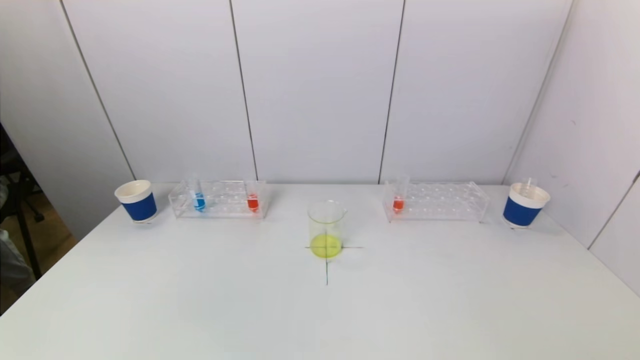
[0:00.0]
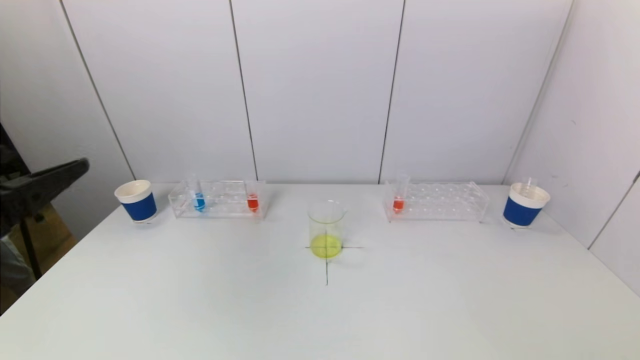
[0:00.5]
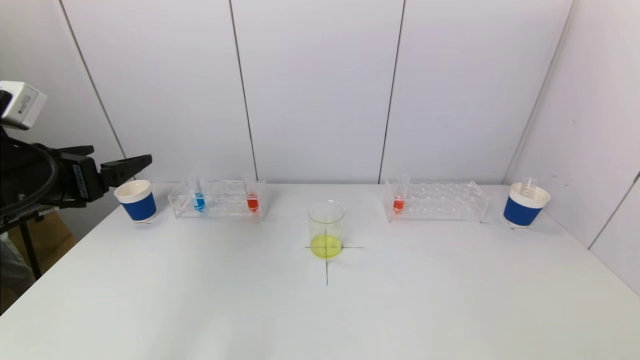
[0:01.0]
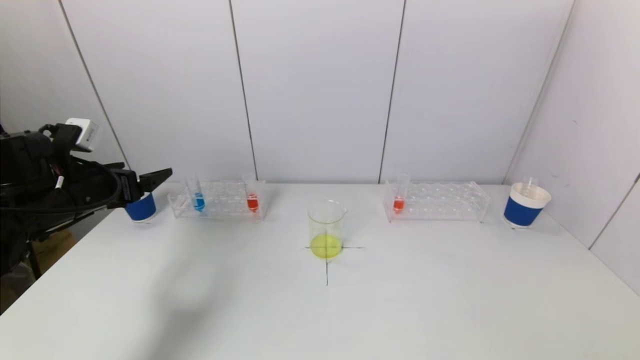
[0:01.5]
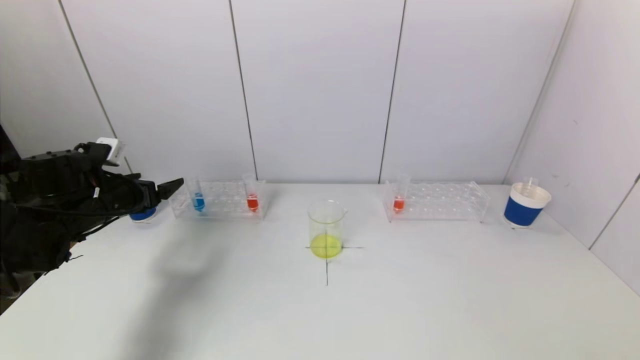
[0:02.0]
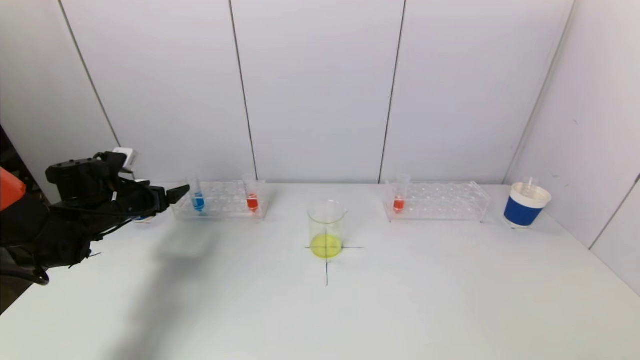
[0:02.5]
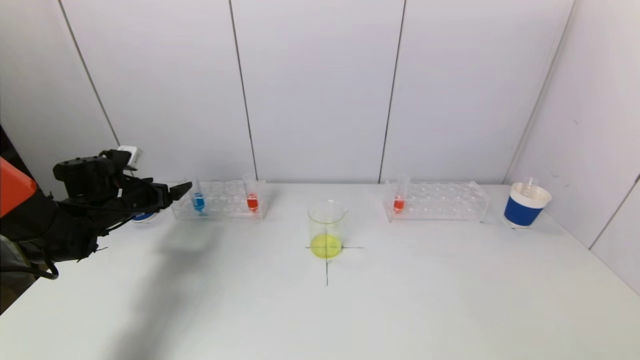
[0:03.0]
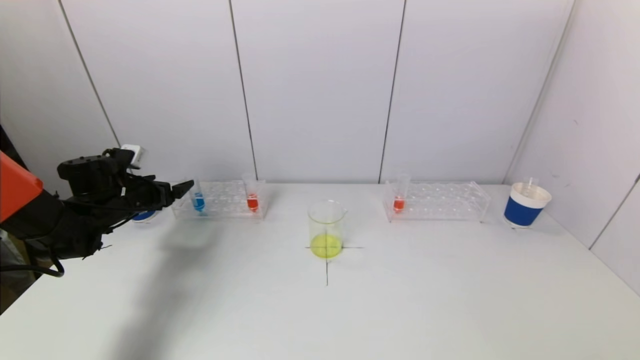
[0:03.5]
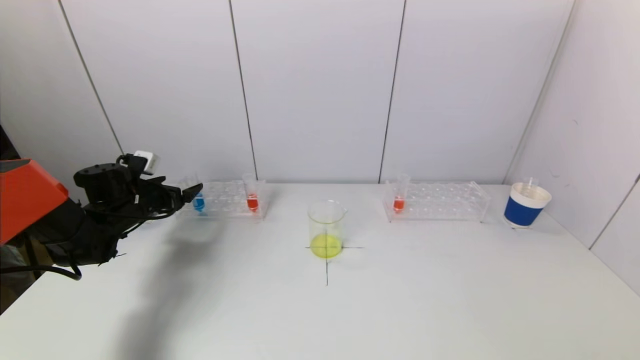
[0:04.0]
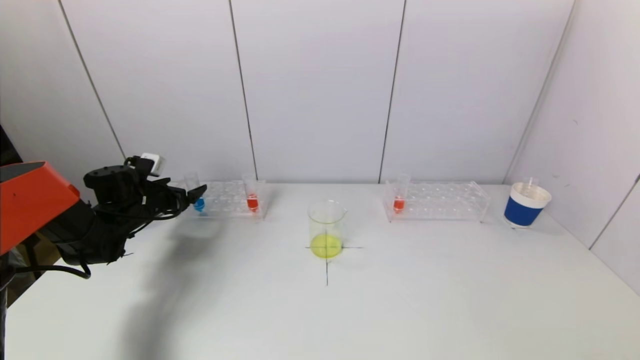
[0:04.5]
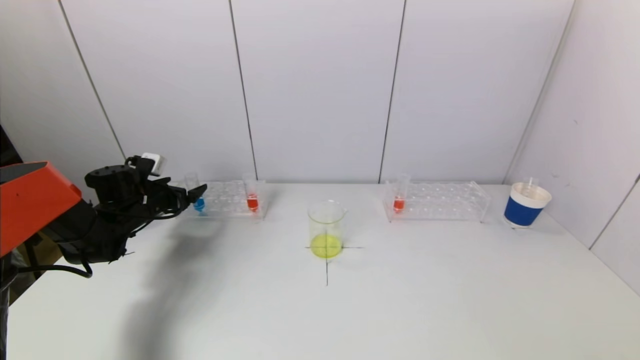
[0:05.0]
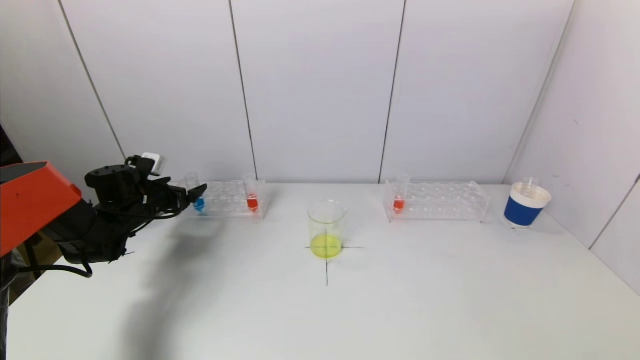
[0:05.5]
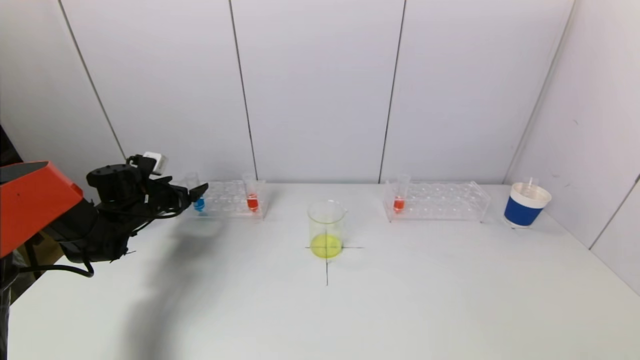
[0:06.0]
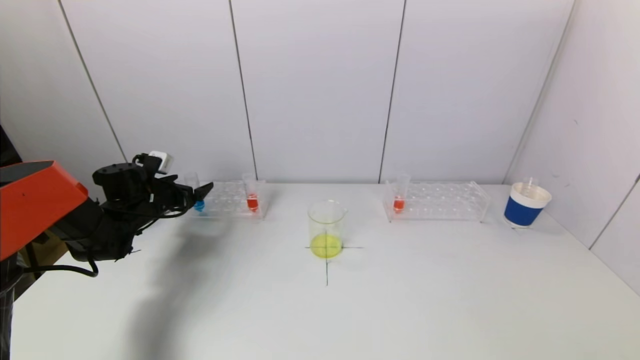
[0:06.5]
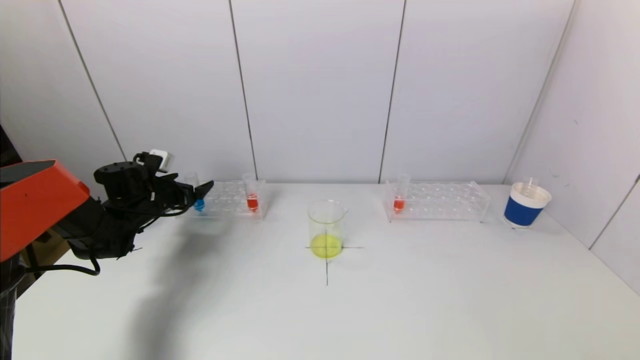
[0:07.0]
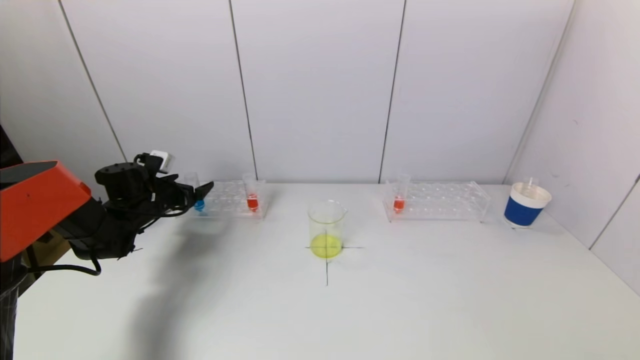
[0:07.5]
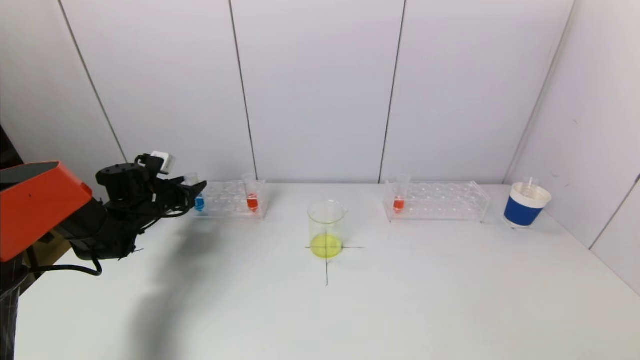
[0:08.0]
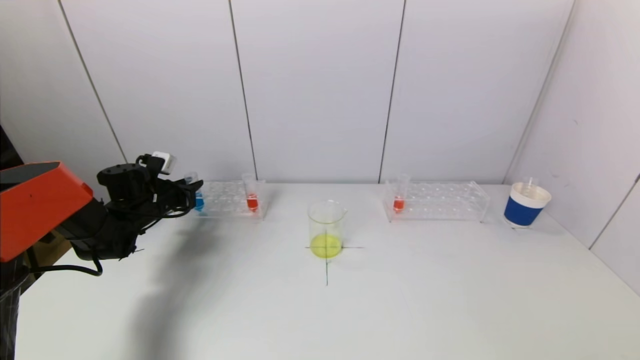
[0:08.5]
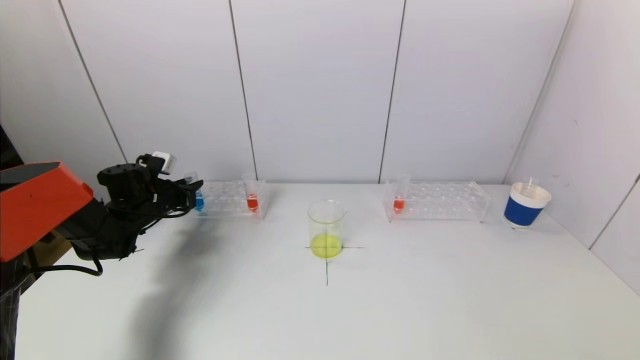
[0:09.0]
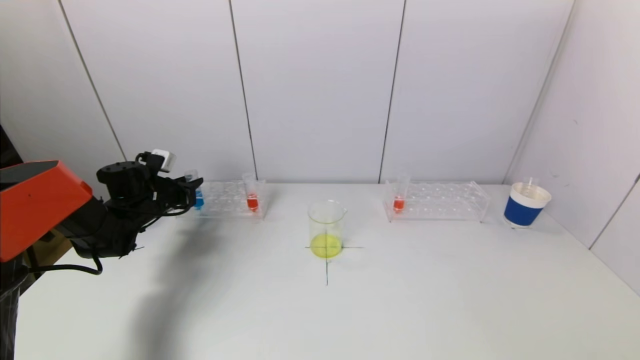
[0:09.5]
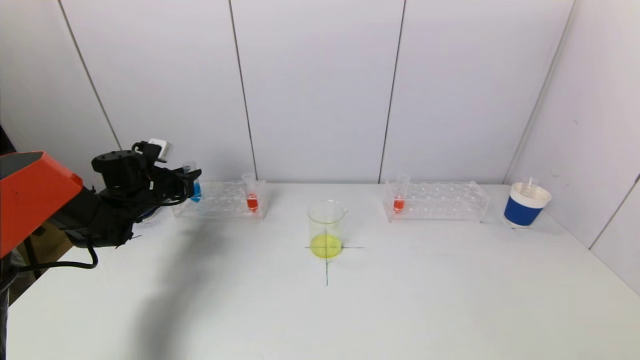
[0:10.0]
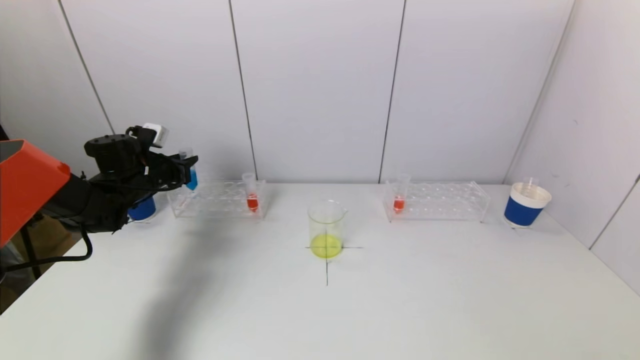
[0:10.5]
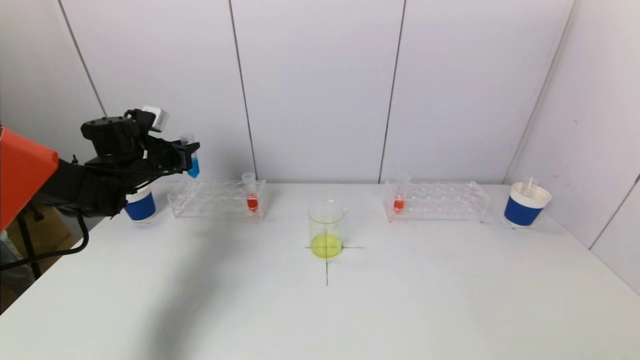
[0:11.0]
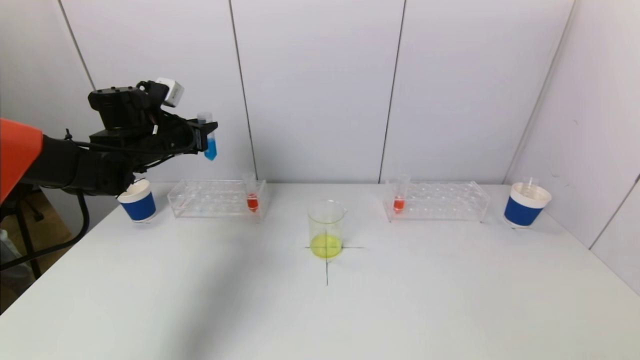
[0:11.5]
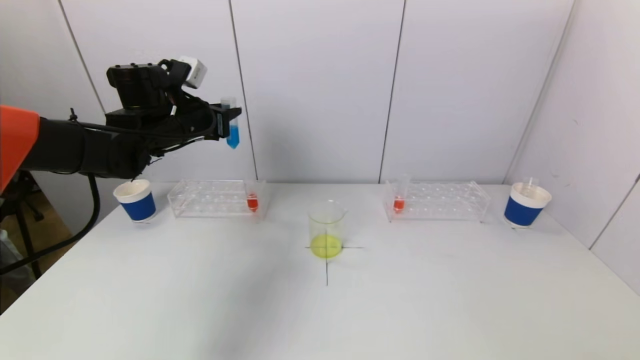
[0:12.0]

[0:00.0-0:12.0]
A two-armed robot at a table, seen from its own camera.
Task of the whole recording: pick up a test tube with pigment on left test tube rack and a test tube with pigment on right test tube rack by grippers and pour them into the beaker.
Step, 0:00.0 to 0:08.0: Grasp the blue reagent with the left gripper.
0:00.0 to 0:02.0: The left gripper is displaced forward by roughly 35 cm.
0:02.0 to 0:04.0: The left gripper goes some 10 cm forward and downward.
0:04.0 to 0:06.0: There are only small adjustments of the grippers.
0:06.0 to 0:08.0: The left gripper closes its fingers.
0:08.0 to 0:10.0: The left gripper closes.
0:10.0 to 0:12.0: The left gripper moves upward and to the right, some 20 cm.

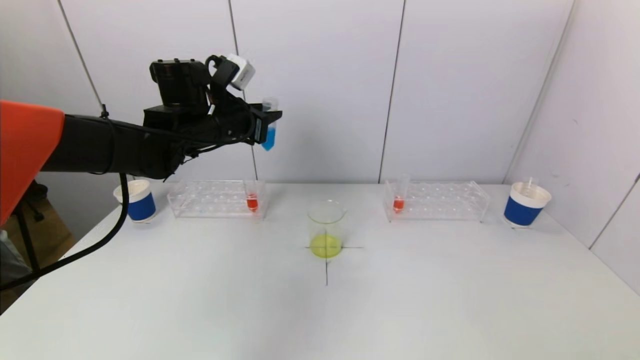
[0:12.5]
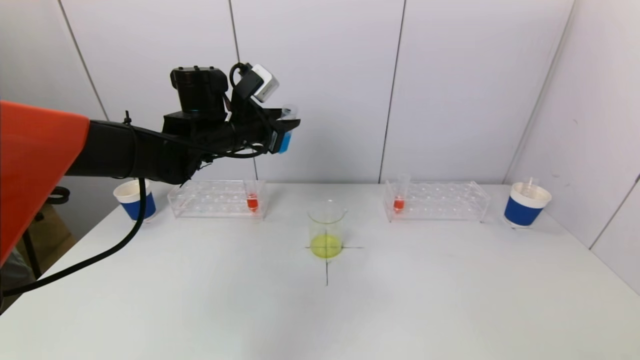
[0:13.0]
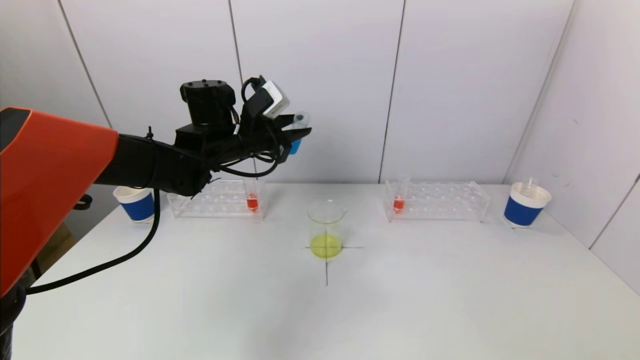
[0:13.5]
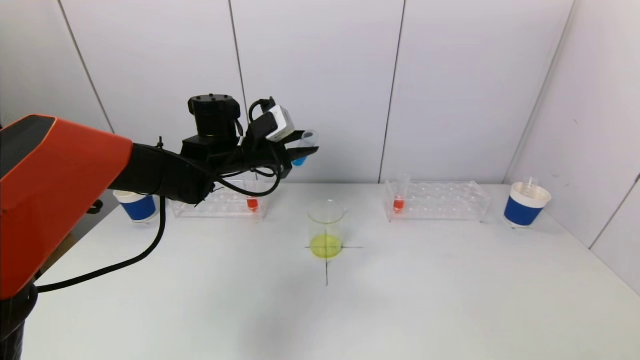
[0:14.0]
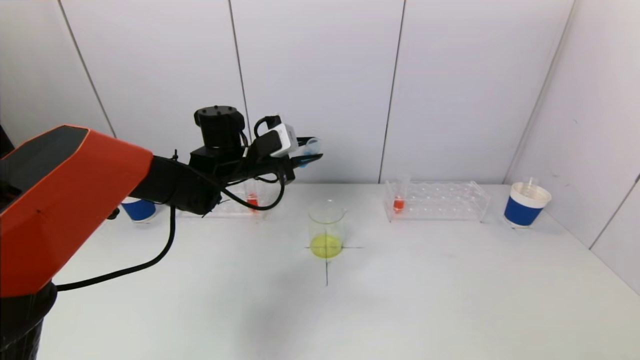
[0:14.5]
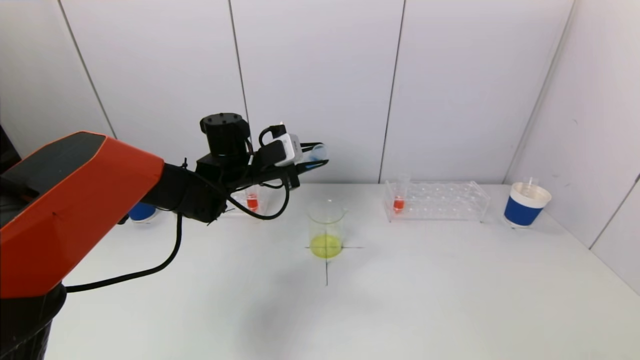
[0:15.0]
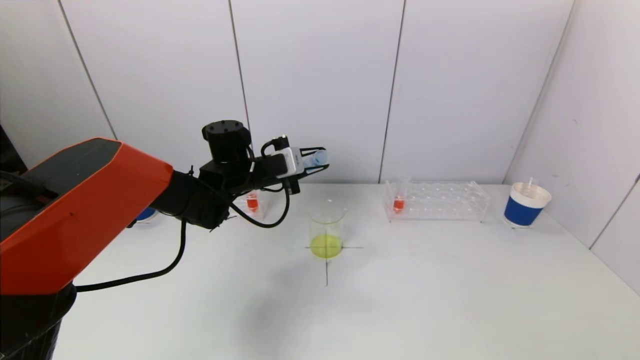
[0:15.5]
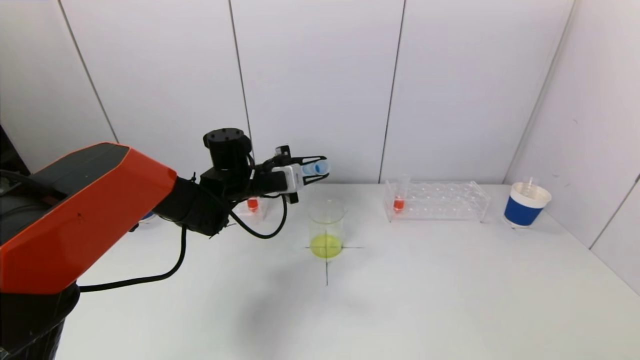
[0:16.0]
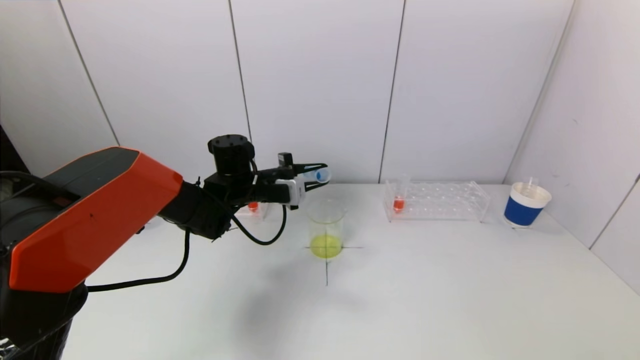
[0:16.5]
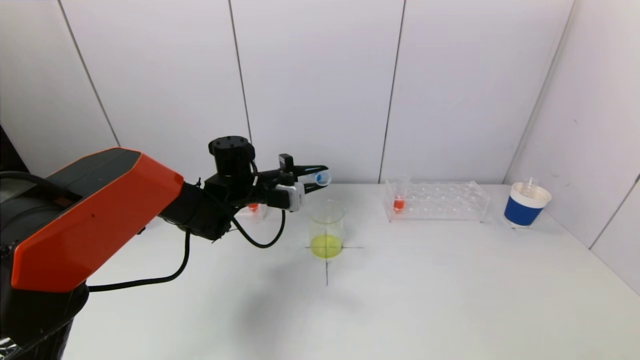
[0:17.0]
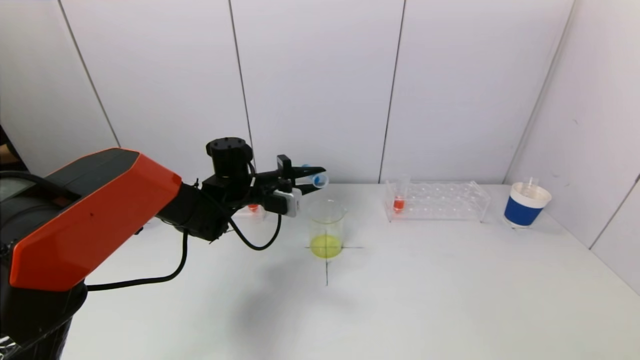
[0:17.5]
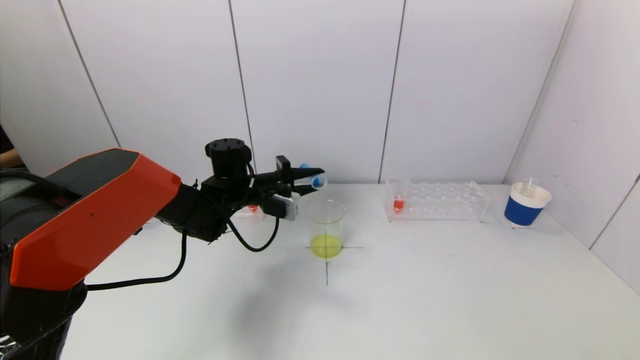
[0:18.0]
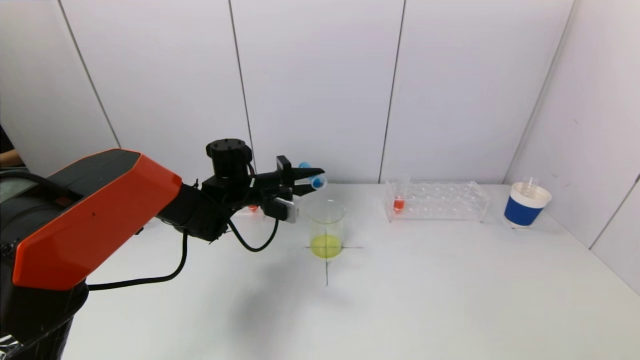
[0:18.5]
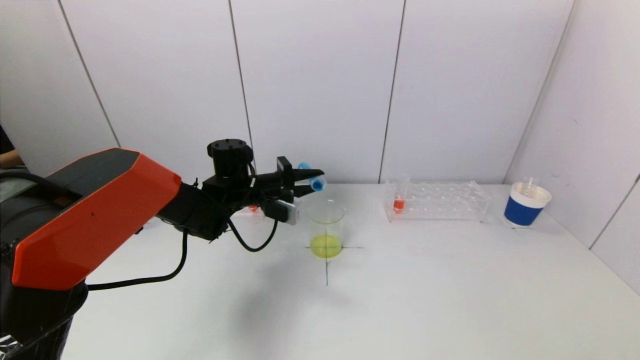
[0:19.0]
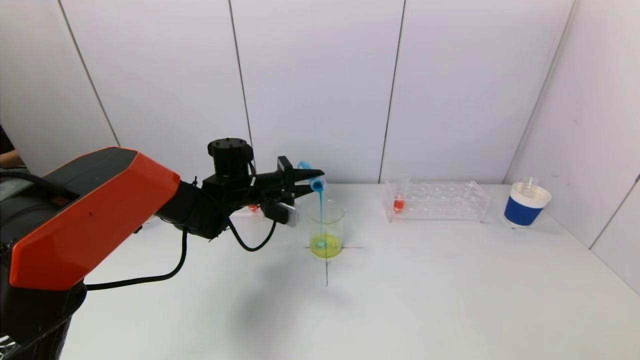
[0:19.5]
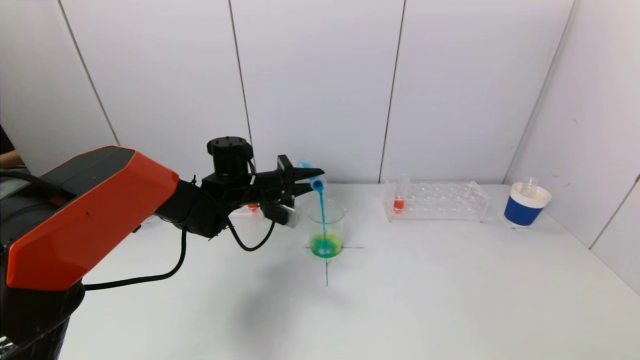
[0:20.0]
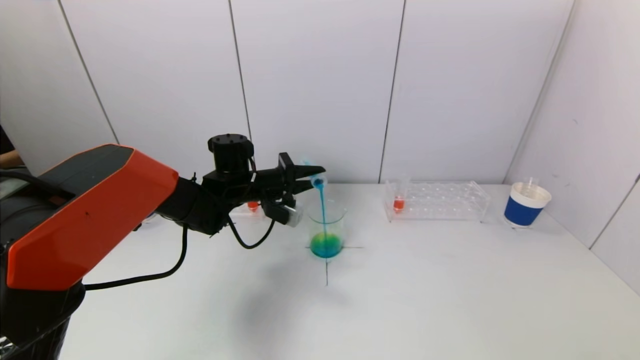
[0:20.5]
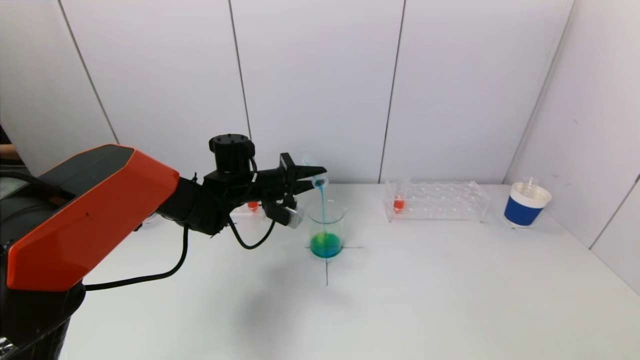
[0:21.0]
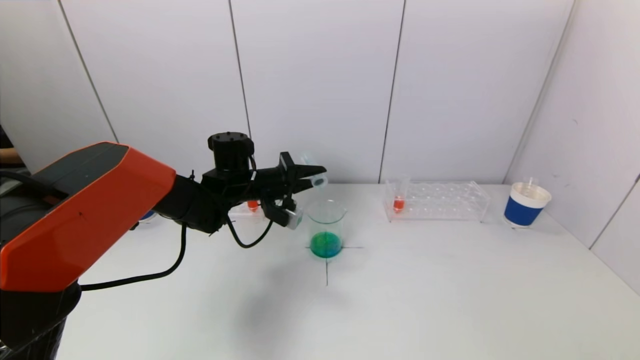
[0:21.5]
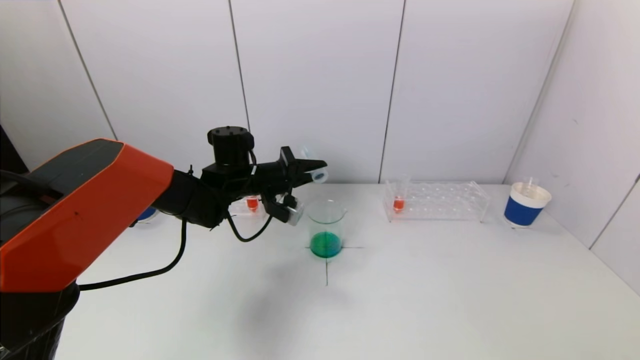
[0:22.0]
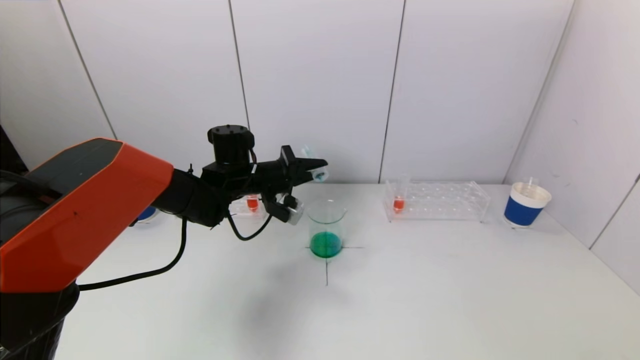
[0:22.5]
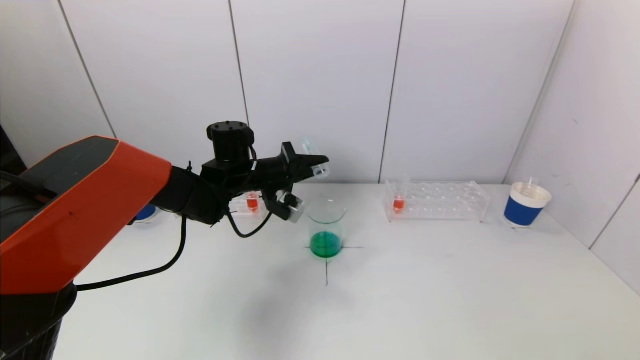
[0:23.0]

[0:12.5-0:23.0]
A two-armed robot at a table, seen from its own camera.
Task of the whole recording: pick up a test tube with pigment on left test tube rack and a test tube with pigment on right test tube rack by grippers and pour them into the beaker.
Step, 0:12.5 to 0:22.5: Pour the blue reagent into the graduated cylinder with the left gripper.
0:12.5 to 0:14.5: The left gripper travels downward by some 5 cm.
0:14.5 to 0:16.5: The left gripper heads downward, covering roughly 5 cm.
0:16.5 to 0:19.0: The grippers stay close to where they were, moving slightly.
0:19.0 to 0:21.0: The grippers make only small movements.
0:21.0 to 0:23.0: The grippers move only a little.
